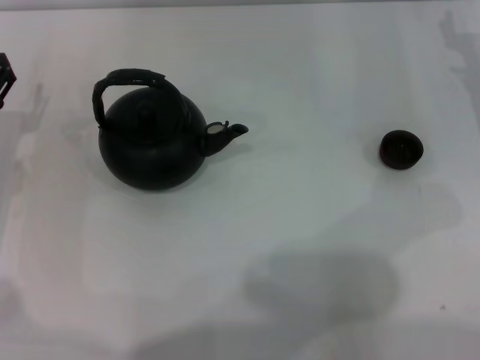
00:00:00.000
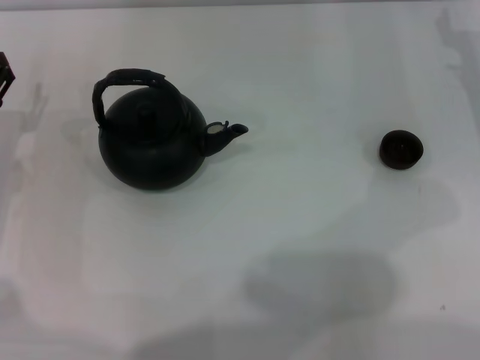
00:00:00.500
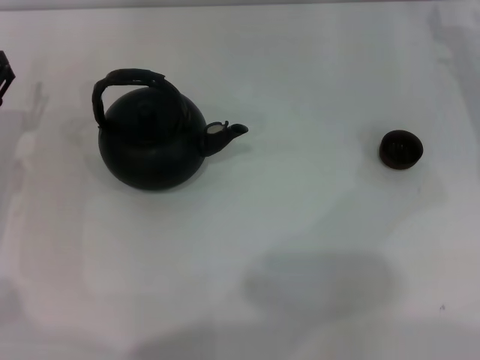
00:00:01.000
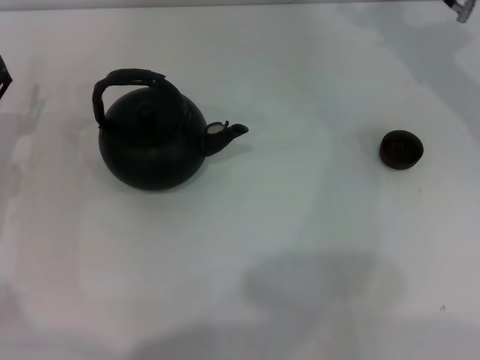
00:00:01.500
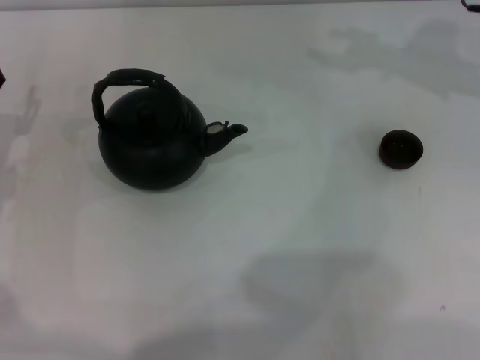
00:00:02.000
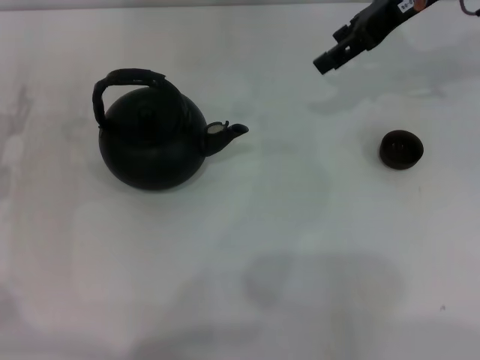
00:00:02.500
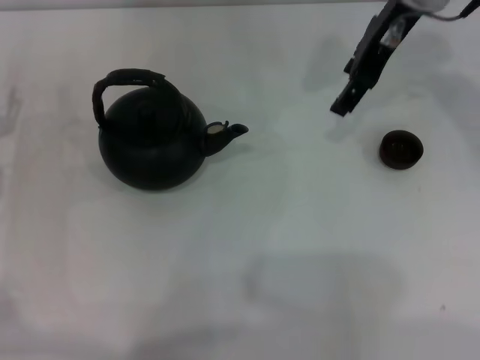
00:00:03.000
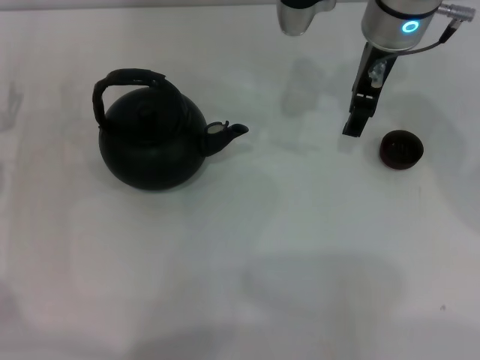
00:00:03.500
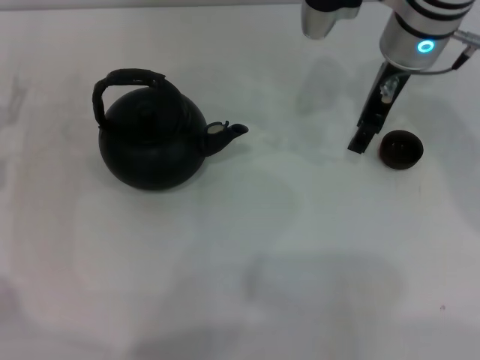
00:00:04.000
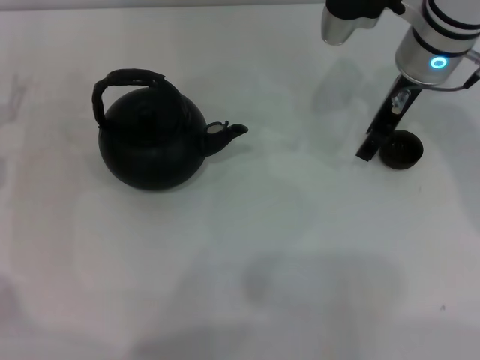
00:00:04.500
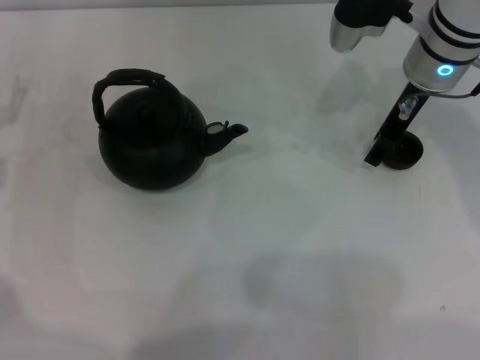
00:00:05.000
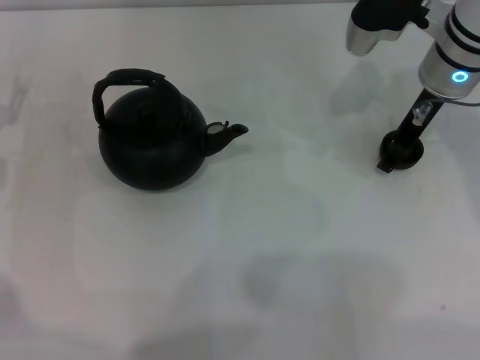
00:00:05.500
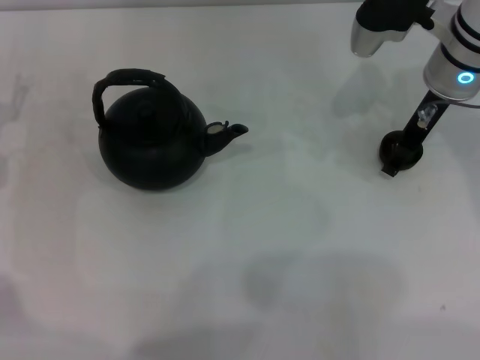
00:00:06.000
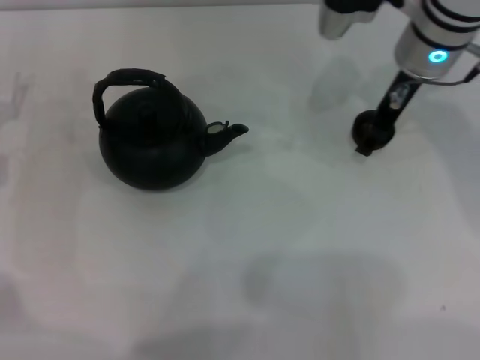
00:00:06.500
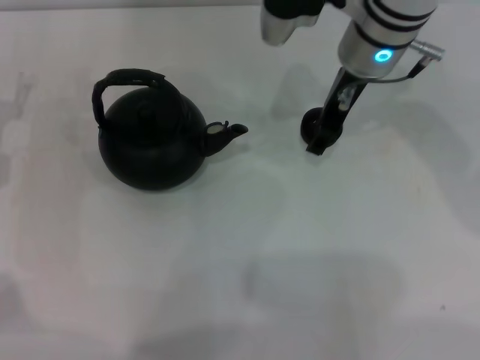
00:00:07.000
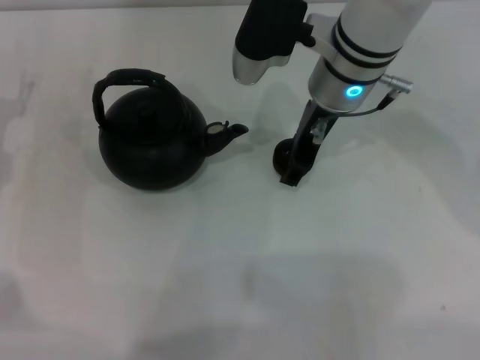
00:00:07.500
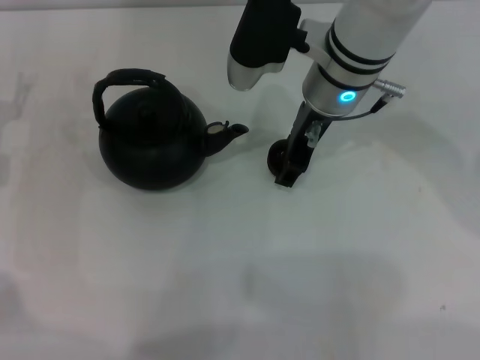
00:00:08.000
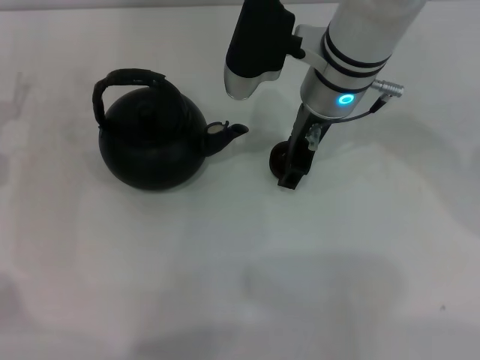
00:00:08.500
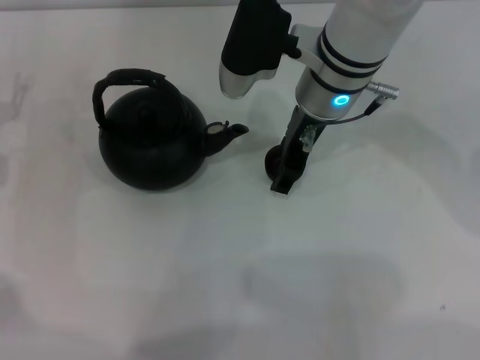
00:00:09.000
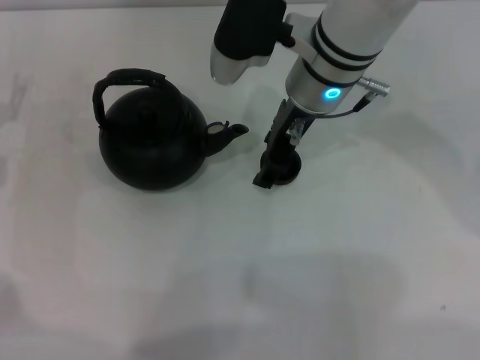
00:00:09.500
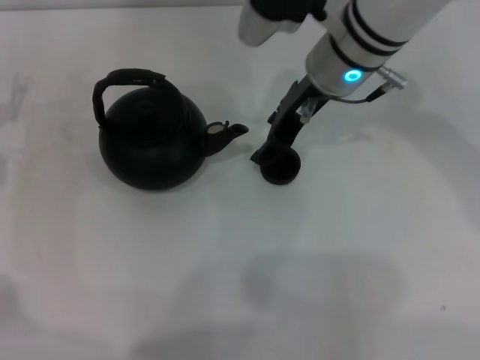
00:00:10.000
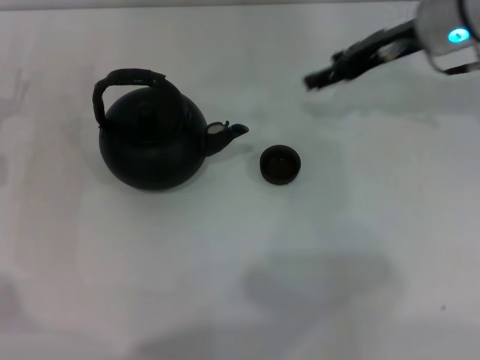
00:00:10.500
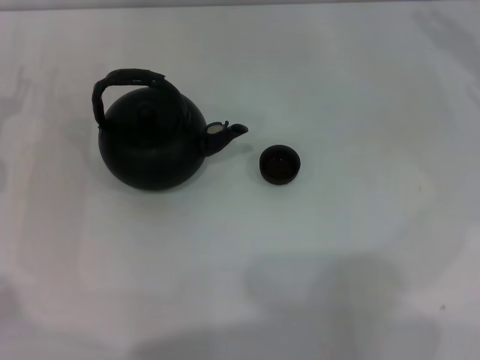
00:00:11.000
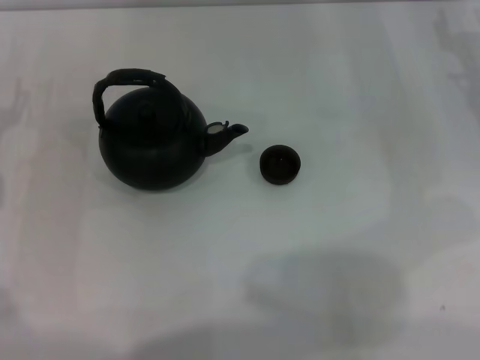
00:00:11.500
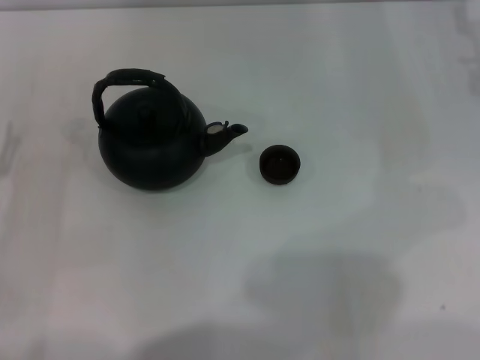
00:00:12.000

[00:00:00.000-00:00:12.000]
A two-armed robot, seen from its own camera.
Task of the whole recording: Grasp the handle of the teapot with one hand and pour tea into the teacup.
Step, 00:00:00.000 to 00:00:06.000: Pick up the teacup with the right gripper.
Step, 00:00:06.500 to 00:00:10.000: Place the teacup in the center of view with the right gripper.
00:00:02.000 to 00:00:04.000: The right gripper travels to the left by approximately 10 cm.
00:00:04.000 to 00:00:06.000: The right gripper shifts by roughly 5 cm.
00:00:06.000 to 00:00:08.000: The right gripper goes approximately 10 cm to the left.
00:00:08.000 to 00:00:10.000: The right gripper opens.
00:00:10.000 to 00:00:12.000: The right gripper heads to the right, covering roughly 20 cm, and closes up. The left gripper shifts roughly 10 cm backward.

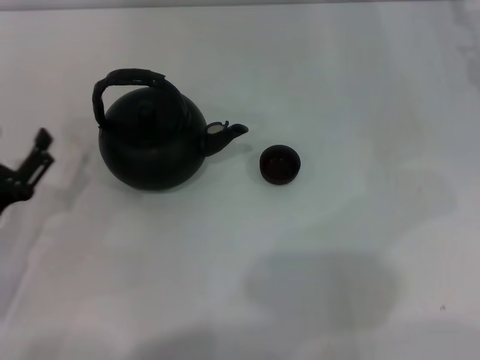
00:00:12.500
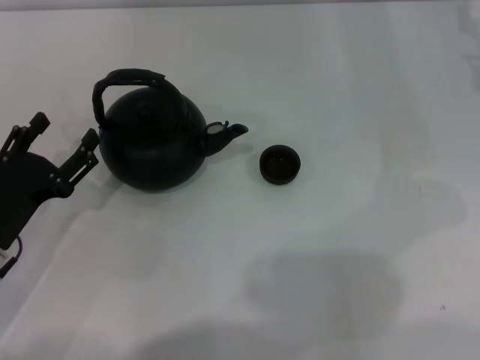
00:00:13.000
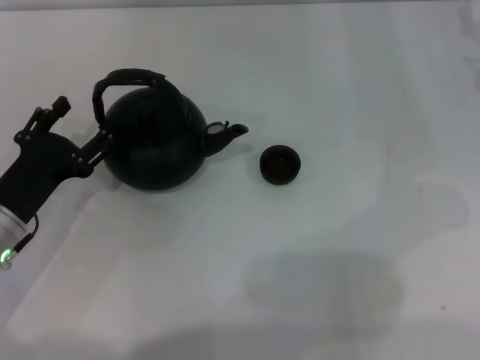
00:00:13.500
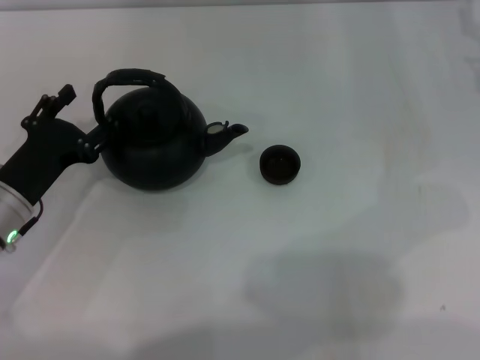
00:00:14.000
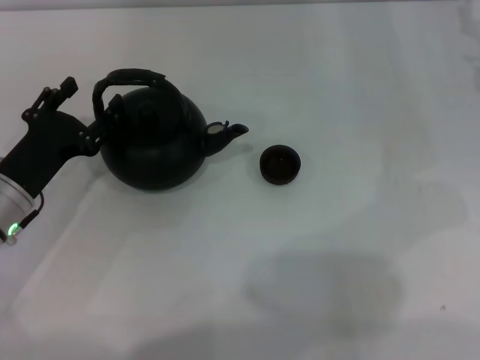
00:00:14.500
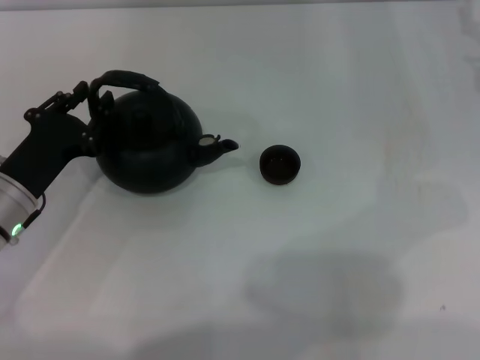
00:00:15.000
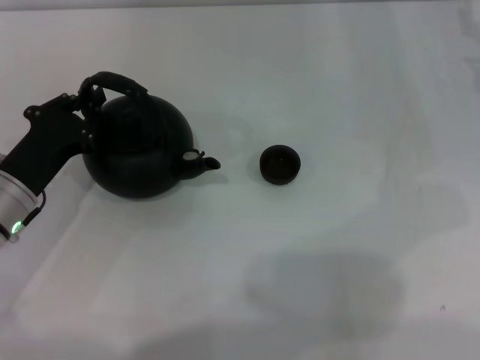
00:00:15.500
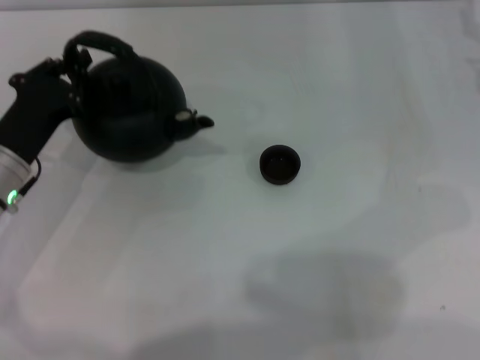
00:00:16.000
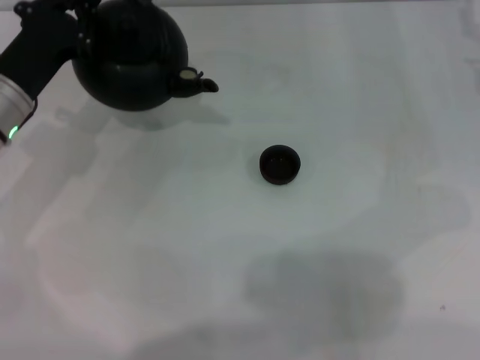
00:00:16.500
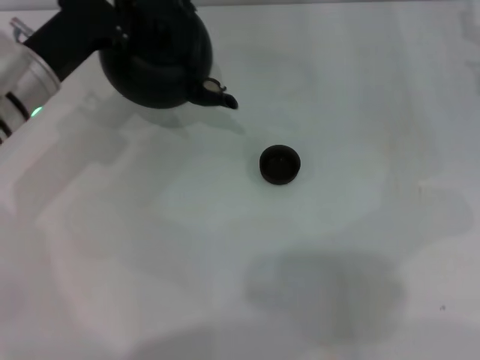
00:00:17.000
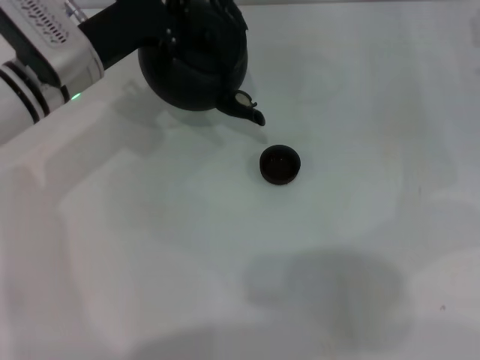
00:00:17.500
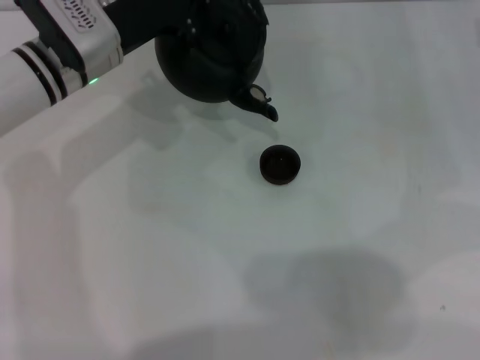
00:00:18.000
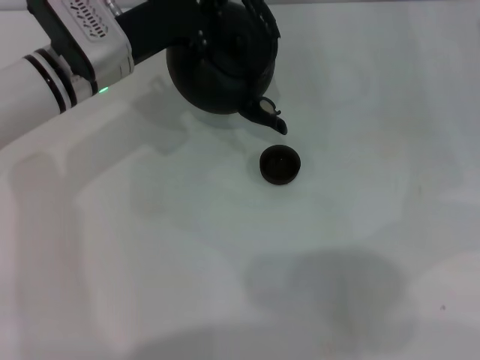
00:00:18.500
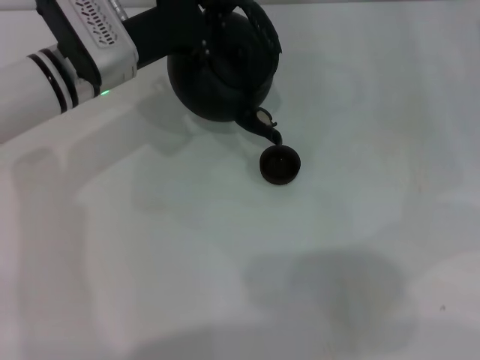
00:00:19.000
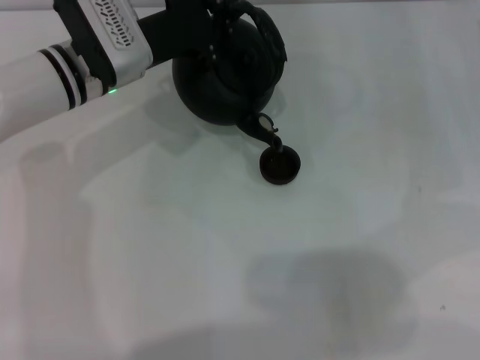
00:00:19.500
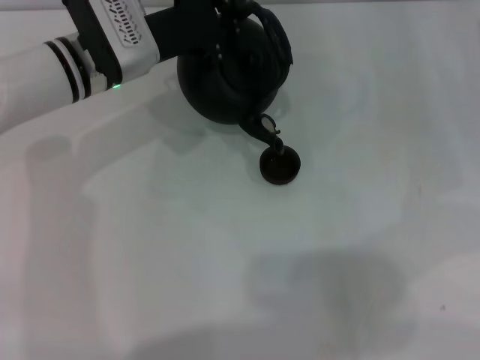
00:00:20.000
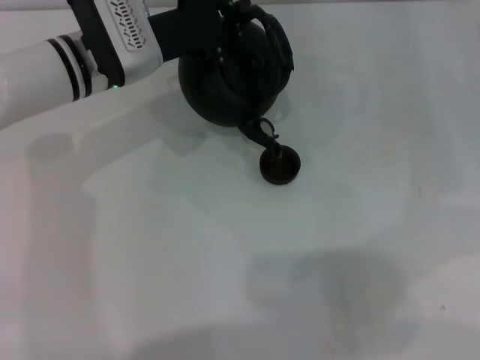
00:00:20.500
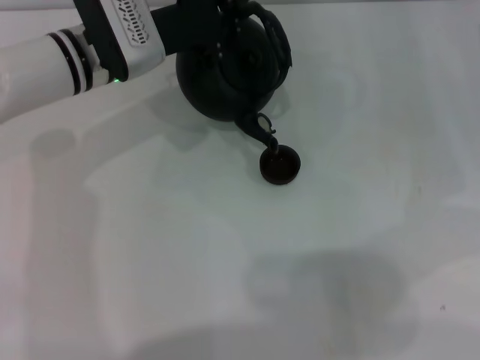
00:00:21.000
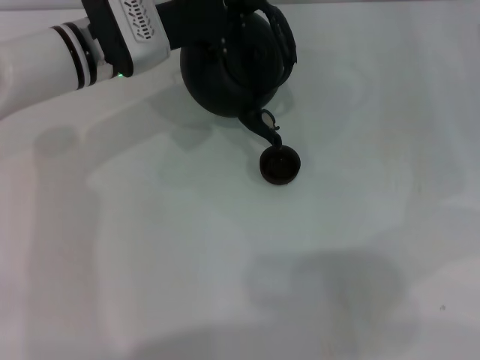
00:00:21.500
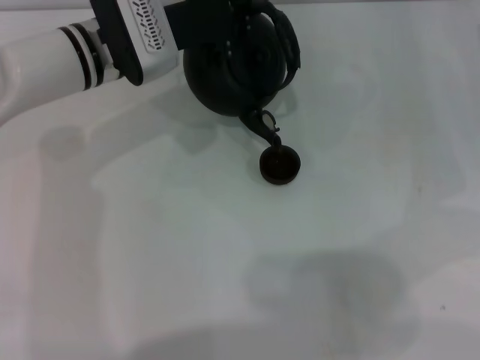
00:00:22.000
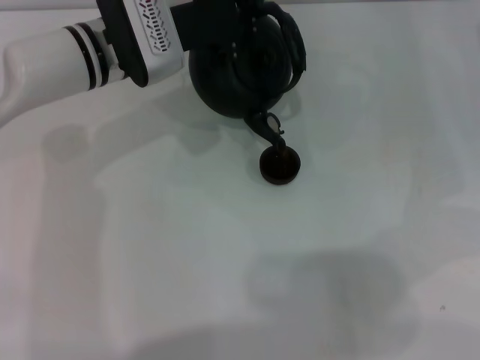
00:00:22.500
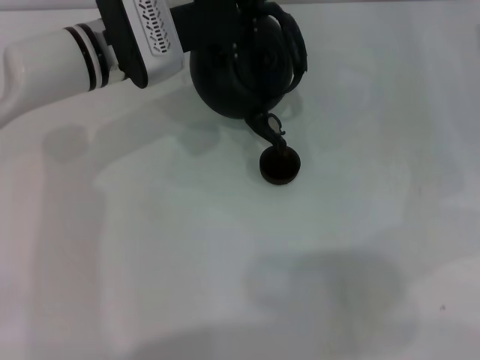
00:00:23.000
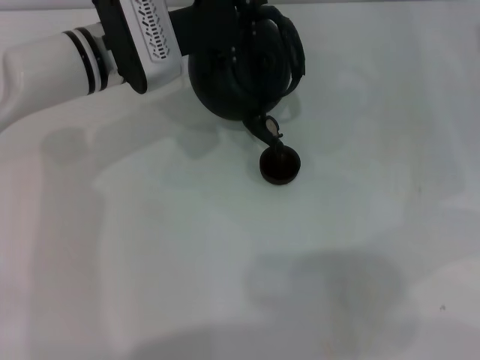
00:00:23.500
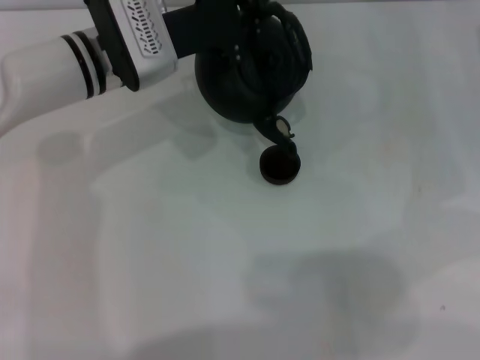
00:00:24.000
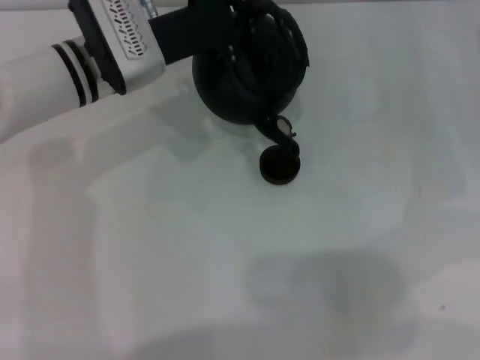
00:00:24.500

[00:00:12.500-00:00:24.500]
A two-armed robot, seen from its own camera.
Task of the whole recording: Grasp the handle of the teapot with one hand and pour tea into the teacup.
Step, 00:00:12.500 to 00:00:16.500: Pick up the teapot with the left gripper.
00:00:12.500 to 00:00:14.500: The left gripper is displaced forward by roughly 5 cm.
00:00:14.500 to 00:00:16.500: The left gripper heads forward and upward, covering about 10 cm, and closes.
00:00:16.500 to 00:00:18.500: The left gripper travels to the right and forward by roughly 10 cm.
00:00:18.500 to 00:00:22.500: The grippers make only small movements.
00:00:22.500 to 00:00:24.500: The grippers make only small movements.

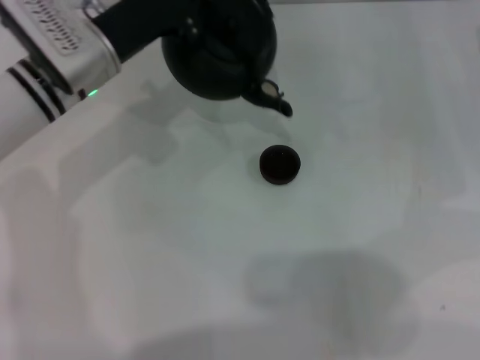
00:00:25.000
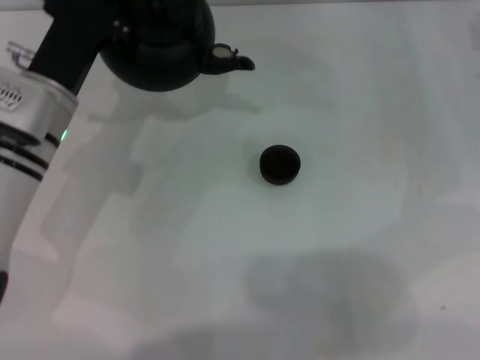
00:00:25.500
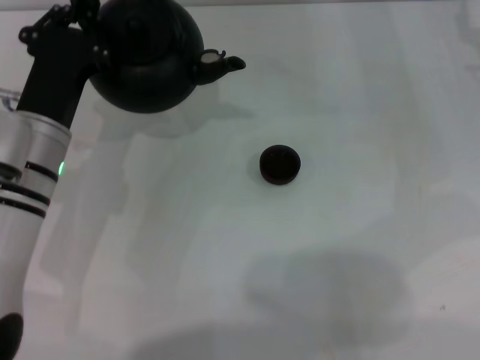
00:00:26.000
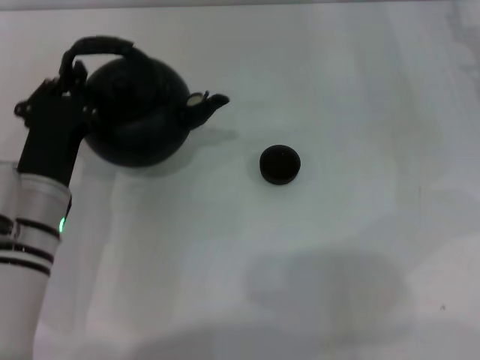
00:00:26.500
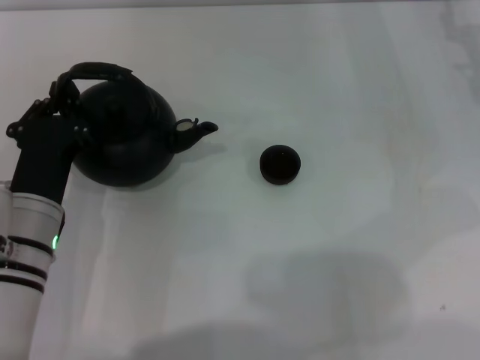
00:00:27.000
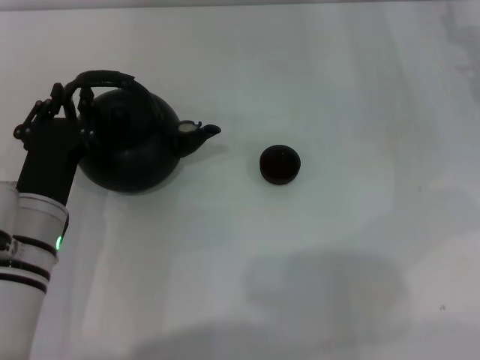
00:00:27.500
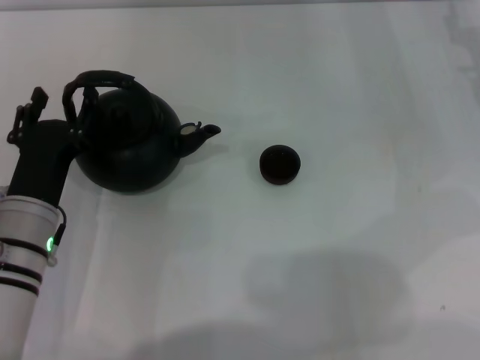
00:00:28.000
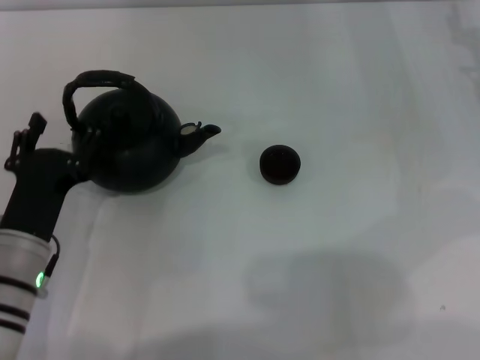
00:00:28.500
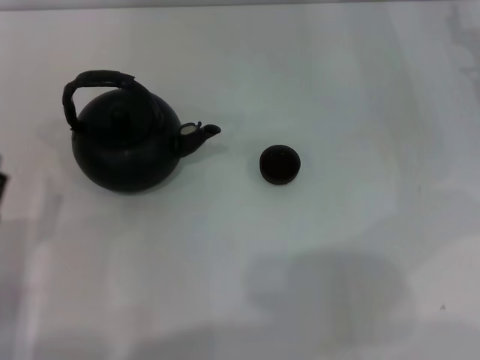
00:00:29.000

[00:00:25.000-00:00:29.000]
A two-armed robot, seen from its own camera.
Task of the whole recording: Grasp the handle of the teapot with one hand and pour tea into the teacup.
Step, 00:00:26.500 to 00:00:28.000: Put down the teapot with the left gripper.
00:00:25.000 to 00:00:27.000: The left gripper moves backward and downward, some 15 cm.
00:00:27.000 to 00:00:29.000: The left gripper is displaced backward and to the left by some 10 cm, and opens.
